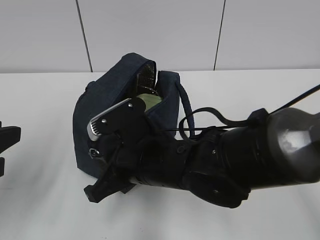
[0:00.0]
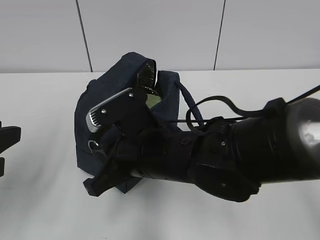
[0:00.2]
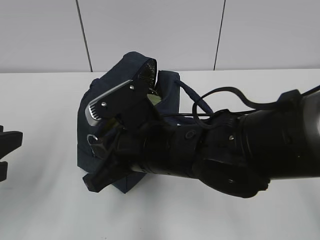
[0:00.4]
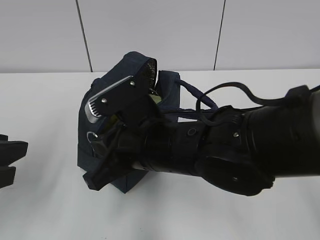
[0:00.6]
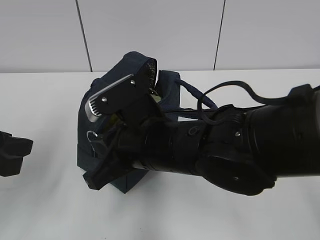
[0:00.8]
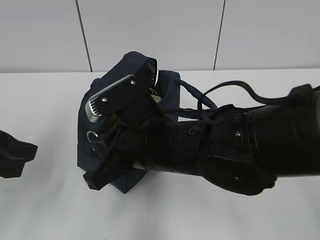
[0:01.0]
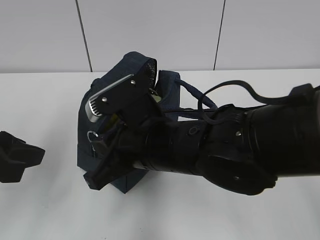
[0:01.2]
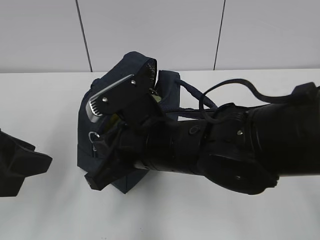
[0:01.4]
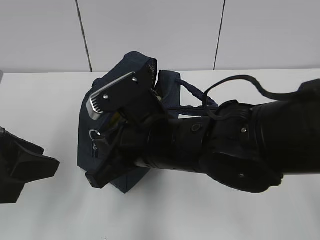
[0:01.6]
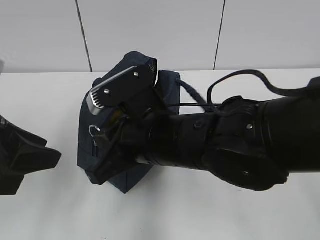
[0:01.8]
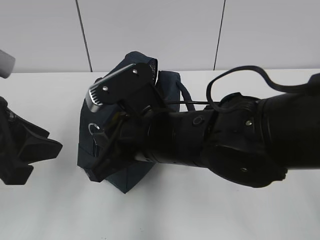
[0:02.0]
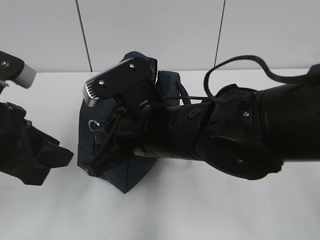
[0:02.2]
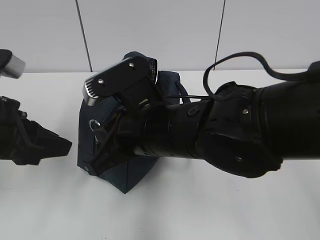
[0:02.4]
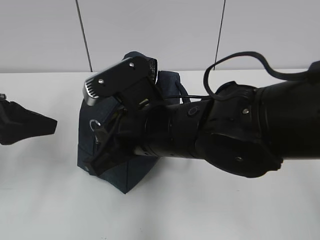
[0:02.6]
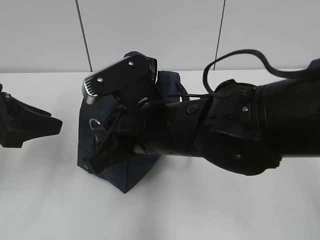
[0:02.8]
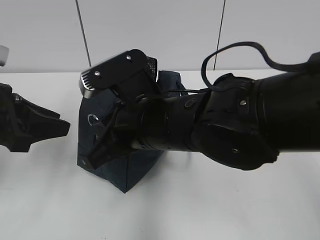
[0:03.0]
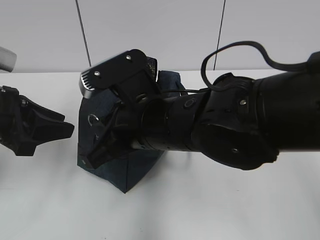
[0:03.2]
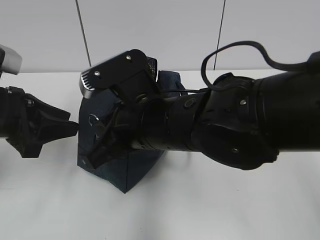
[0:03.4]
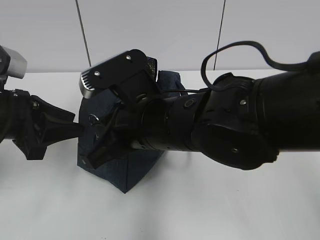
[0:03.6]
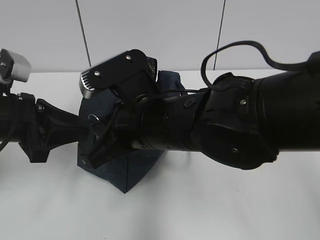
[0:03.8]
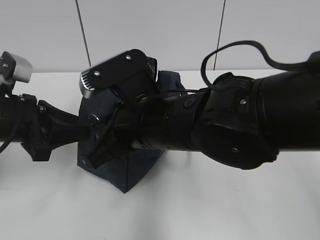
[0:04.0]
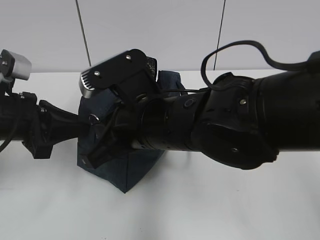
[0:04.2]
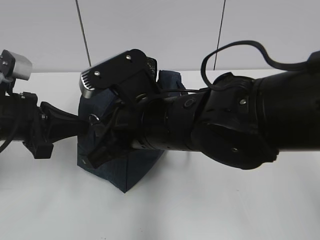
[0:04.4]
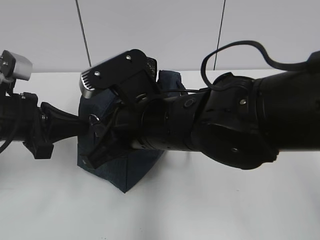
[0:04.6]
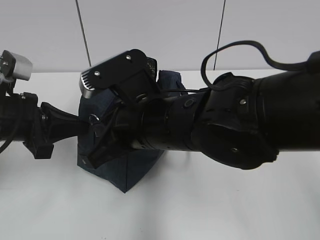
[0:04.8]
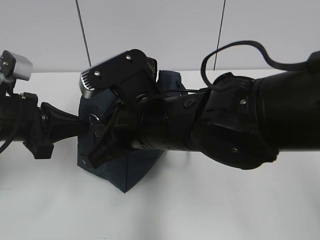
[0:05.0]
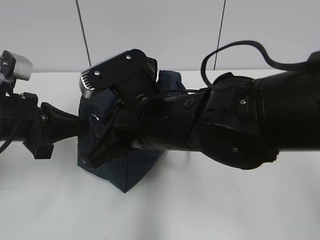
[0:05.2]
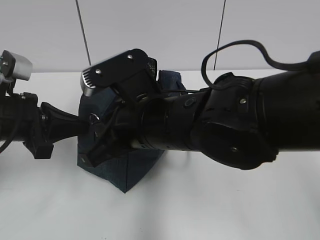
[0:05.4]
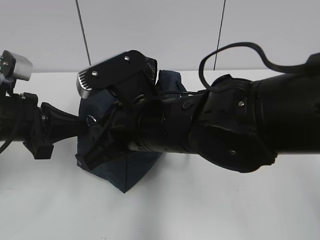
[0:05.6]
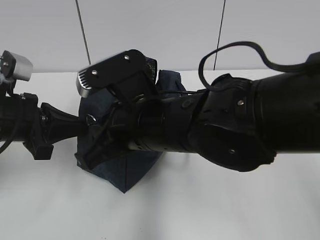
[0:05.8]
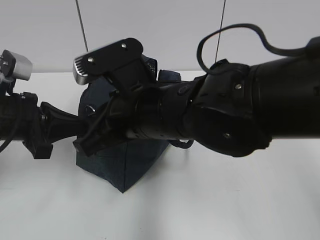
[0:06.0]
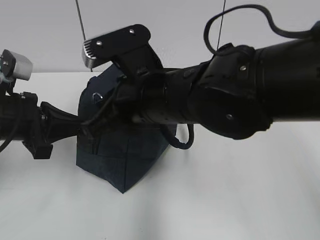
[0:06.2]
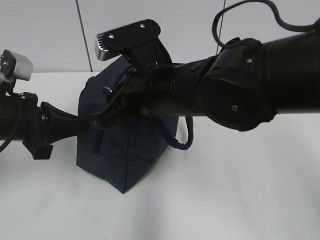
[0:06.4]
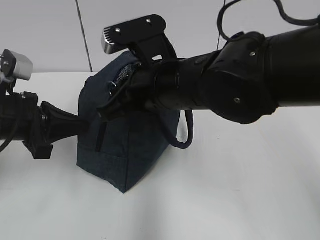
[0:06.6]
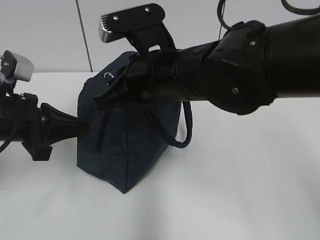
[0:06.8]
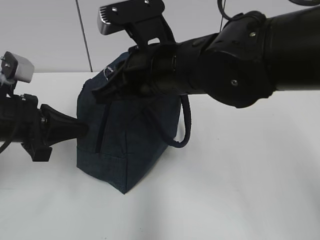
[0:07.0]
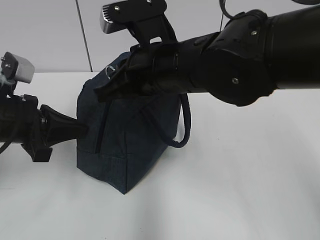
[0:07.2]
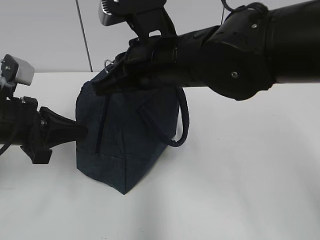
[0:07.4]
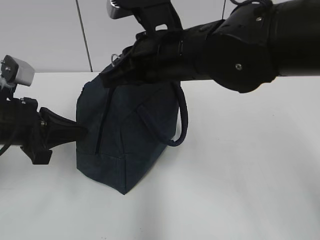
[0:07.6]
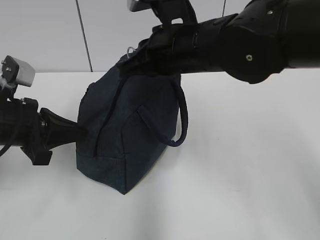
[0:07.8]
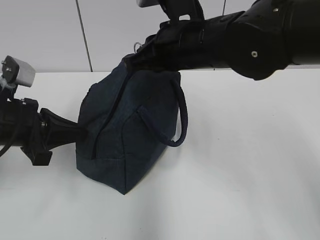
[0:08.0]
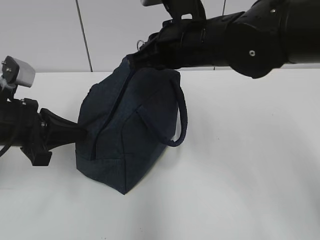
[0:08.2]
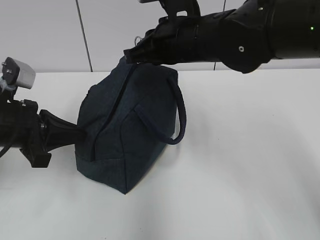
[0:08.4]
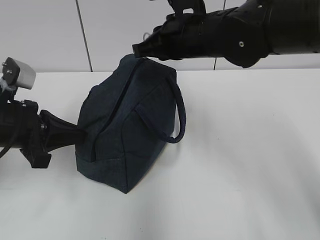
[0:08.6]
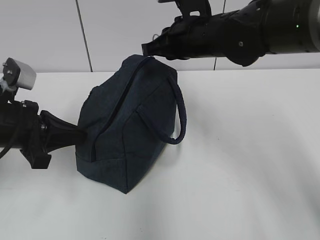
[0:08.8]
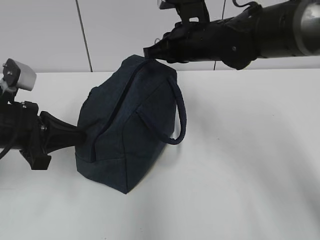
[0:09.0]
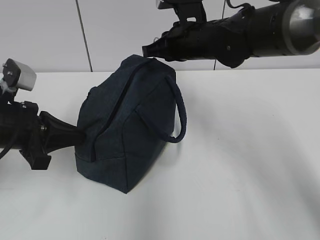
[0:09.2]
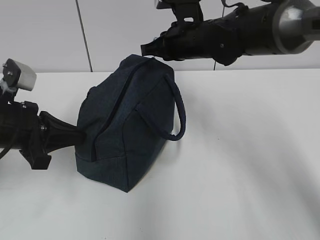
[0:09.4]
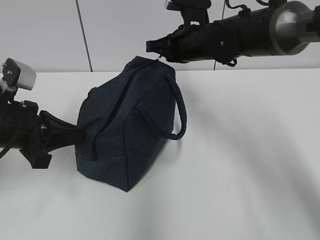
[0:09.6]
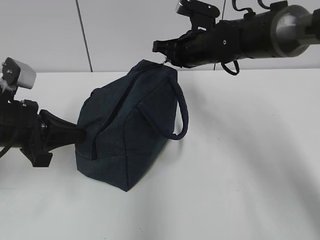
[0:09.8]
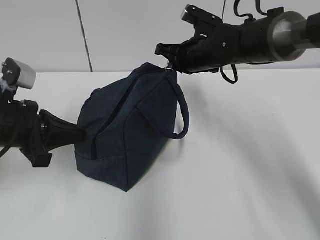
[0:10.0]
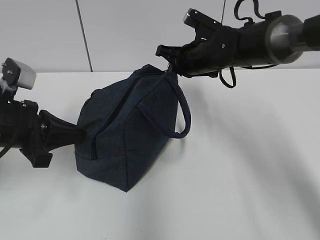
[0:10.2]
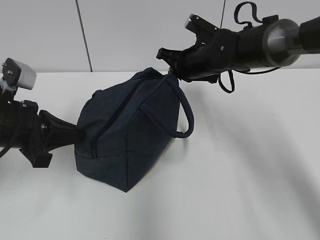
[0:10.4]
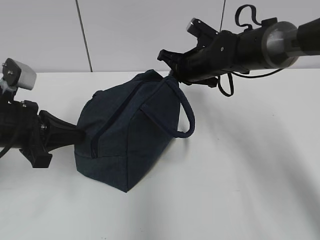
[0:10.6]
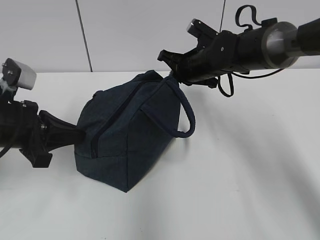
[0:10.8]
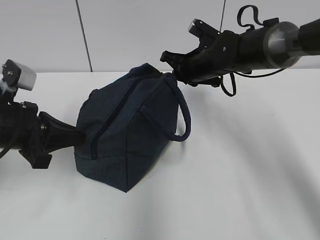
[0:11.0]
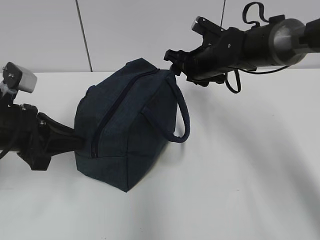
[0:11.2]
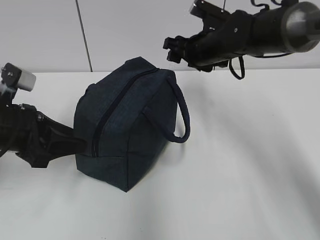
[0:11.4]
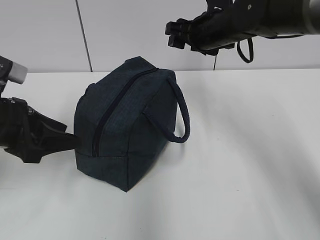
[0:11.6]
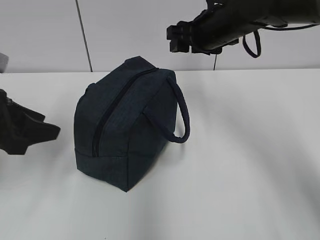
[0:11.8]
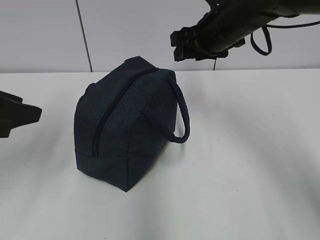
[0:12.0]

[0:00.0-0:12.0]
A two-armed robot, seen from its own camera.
Step, 0:00.0 to 0:04.4: Grab the lunch bag with your left hand.
Step, 0:04.6 to 0:10.8: Pull the zipper with your right hand.
0:01.6 to 0:03.0: The left gripper moves forward, approximately 5 cm.
0:03.0 to 0:04.4: The left gripper closes its fingers.
0:04.4 to 0:06.0: The grippers move only a little.
0:06.0 to 0:07.6: The right gripper heads forward, covering some 5 cm.
0:07.6 to 0:09.0: The right gripper goes roughly 10 cm forward and to the right.
0:09.0 to 0:10.4: The right gripper heads downward, covering about 5 cm.
0:10.4 to 0:12.0: The left gripper moves upward, roughly 10 cm, and opens; the right gripper heads upward and backward, covering some 10 cm, and opens up.

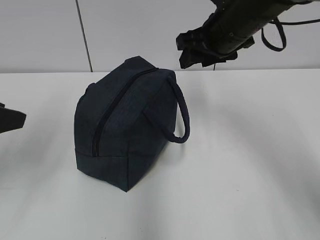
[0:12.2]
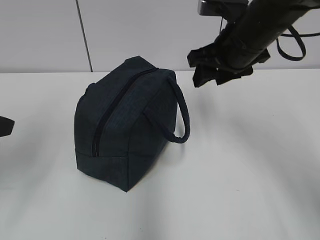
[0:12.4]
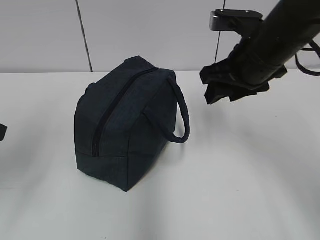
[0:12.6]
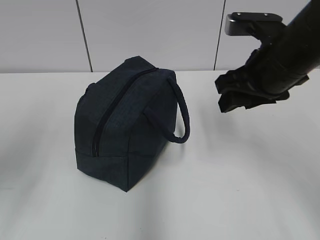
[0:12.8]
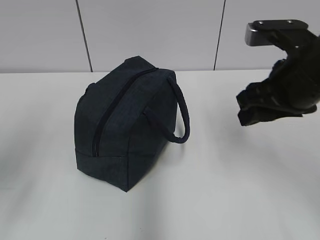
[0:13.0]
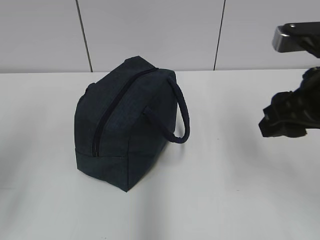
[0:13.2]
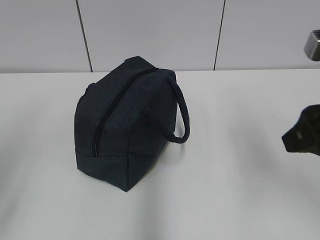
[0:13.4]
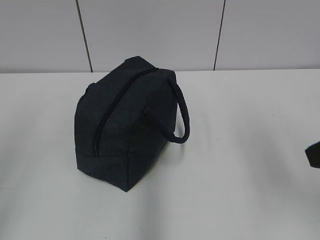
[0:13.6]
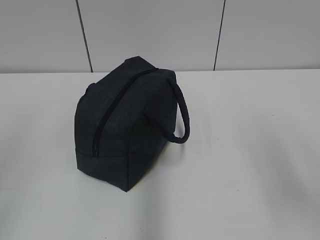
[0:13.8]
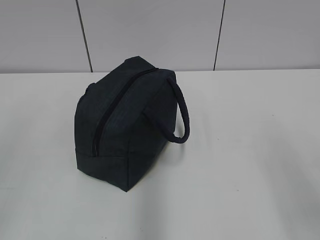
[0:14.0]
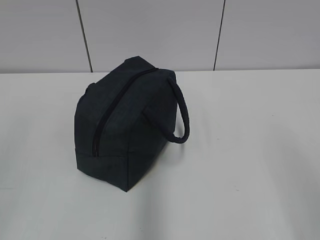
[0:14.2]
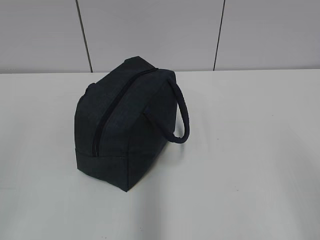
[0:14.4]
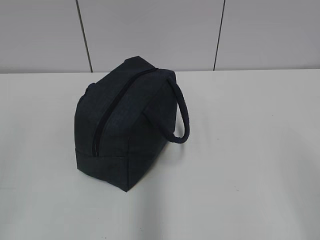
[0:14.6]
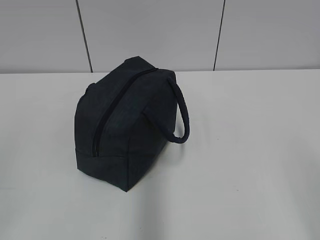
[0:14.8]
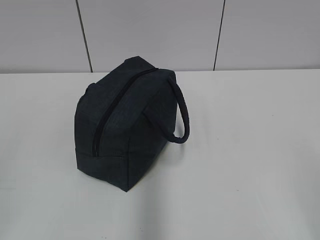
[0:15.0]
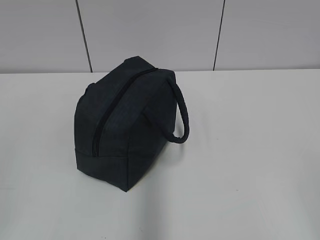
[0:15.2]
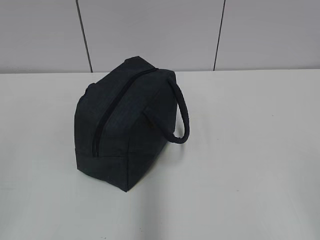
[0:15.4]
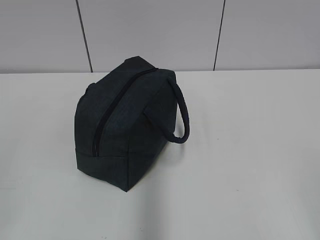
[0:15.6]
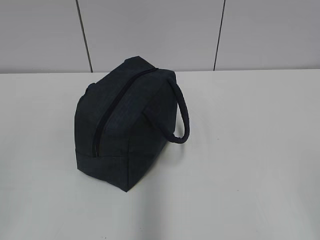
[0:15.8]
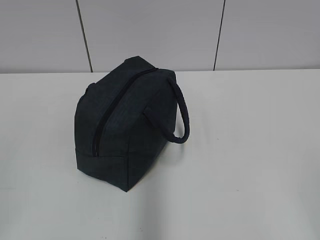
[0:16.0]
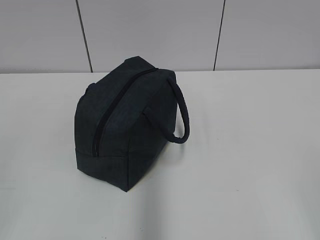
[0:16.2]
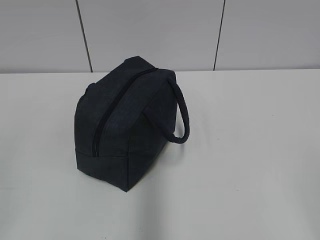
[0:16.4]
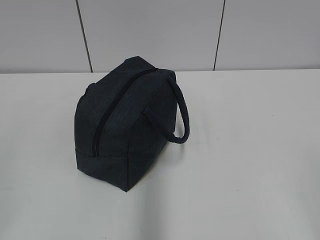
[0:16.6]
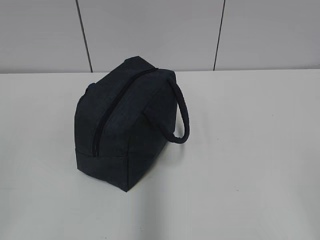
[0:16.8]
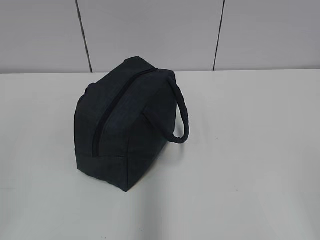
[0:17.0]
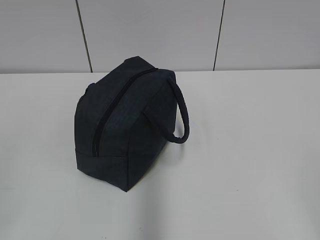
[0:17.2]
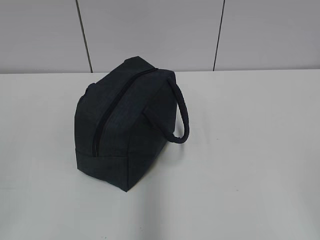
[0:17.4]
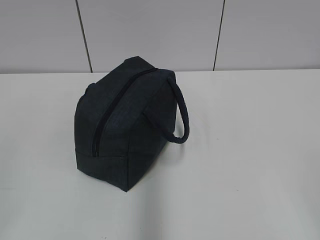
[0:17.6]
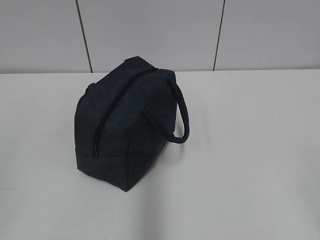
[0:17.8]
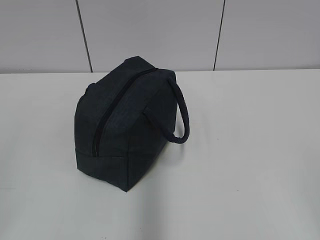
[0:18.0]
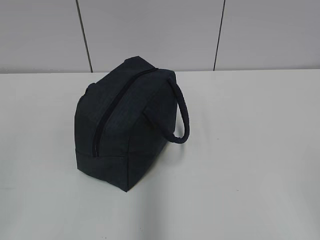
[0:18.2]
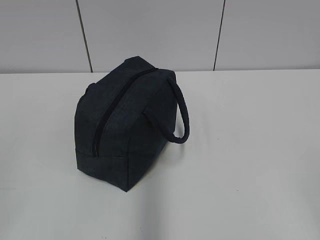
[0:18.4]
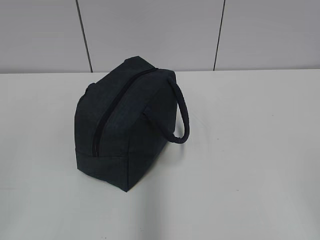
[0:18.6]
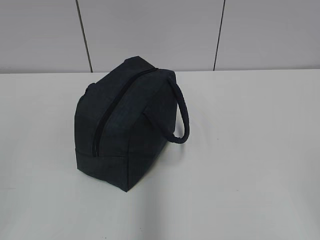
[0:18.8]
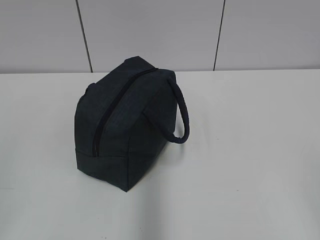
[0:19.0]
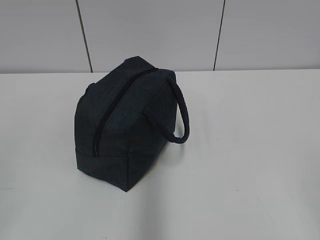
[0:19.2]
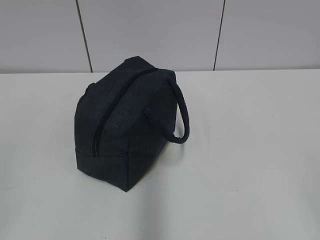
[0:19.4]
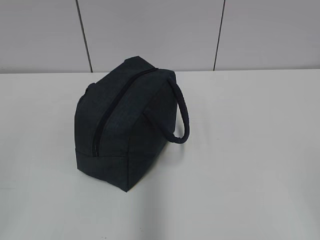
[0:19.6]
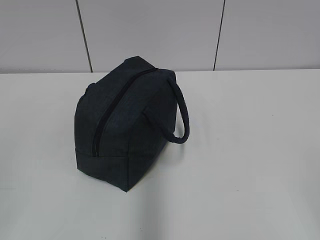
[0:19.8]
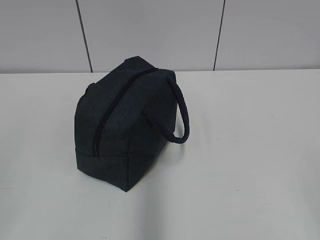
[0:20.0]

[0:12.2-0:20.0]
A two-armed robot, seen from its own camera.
0:12.2 to 0:13.8: The right gripper is displaced backward by some 25 cm; the left gripper moves backward, approximately 15 cm.
0:13.8 to 0:15.4: The right gripper is displaced backward by some 15 cm.
0:15.4 to 0:16.8: Neither gripper changes place.
0:18.4 to 0:20.0: Neither gripper changes place.
